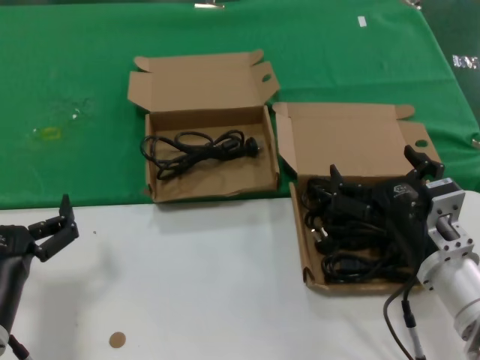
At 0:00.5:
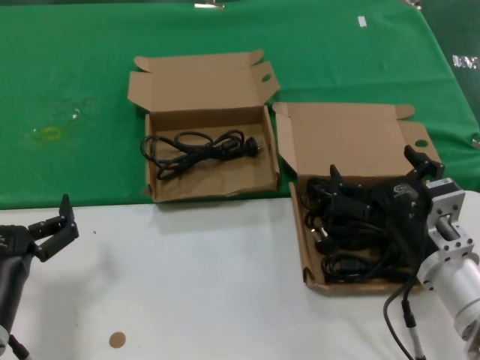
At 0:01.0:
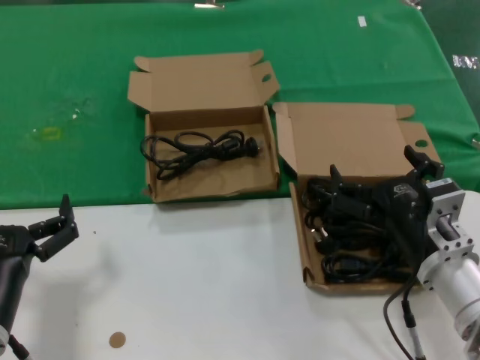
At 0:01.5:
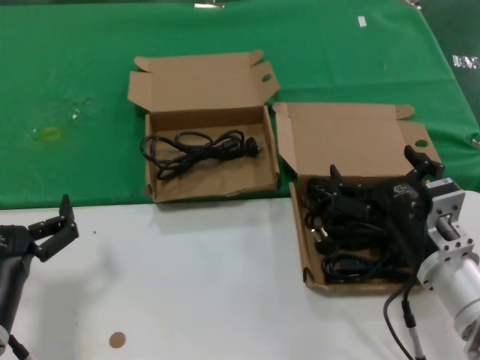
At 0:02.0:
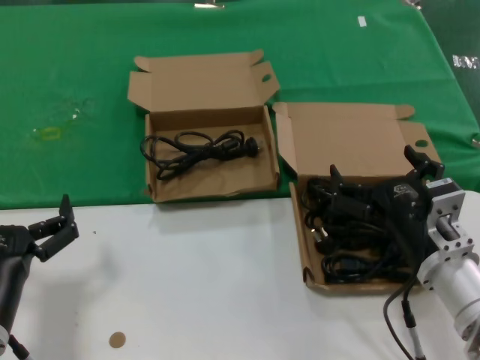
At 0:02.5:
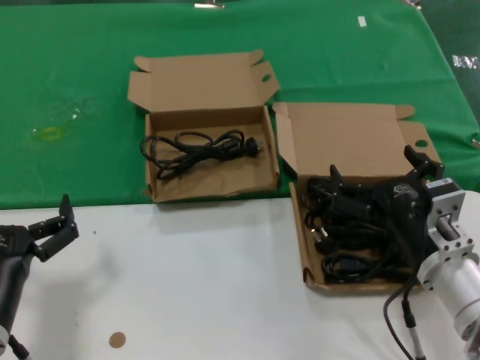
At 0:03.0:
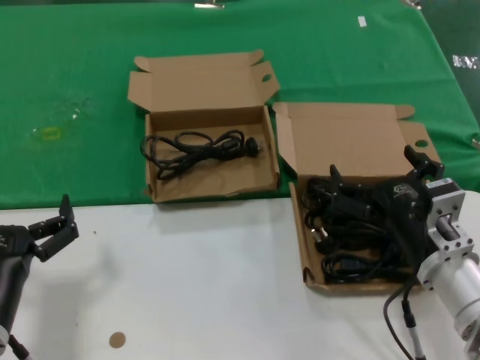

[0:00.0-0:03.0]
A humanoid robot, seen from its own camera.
Task of the whole recording: take the parts from the box containing them and put them into an empty box.
0:00.0 to 0:03.0: Neither hand changes place.
